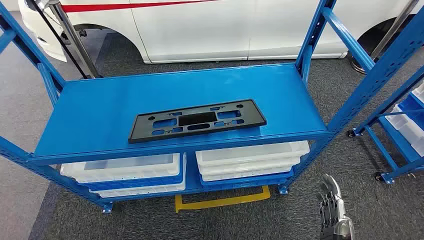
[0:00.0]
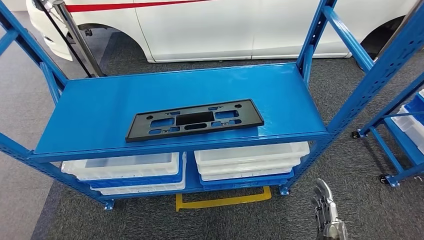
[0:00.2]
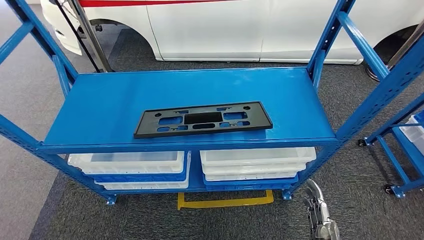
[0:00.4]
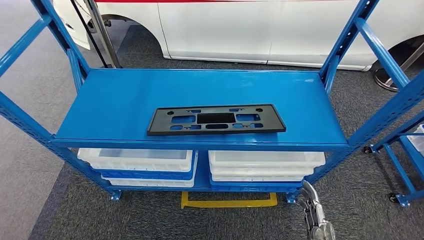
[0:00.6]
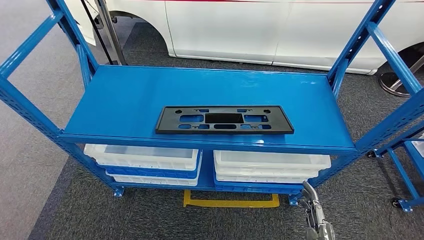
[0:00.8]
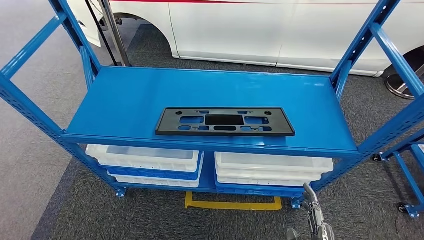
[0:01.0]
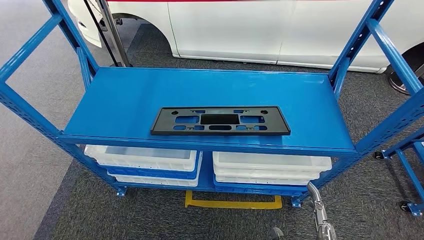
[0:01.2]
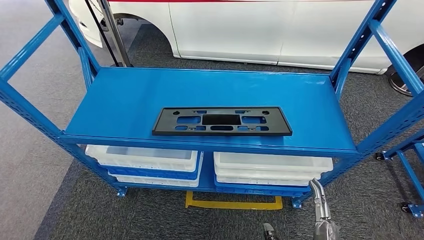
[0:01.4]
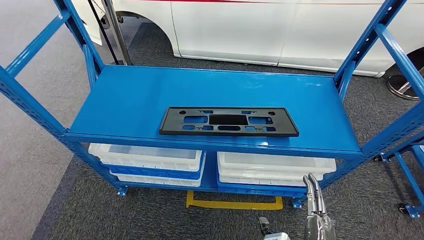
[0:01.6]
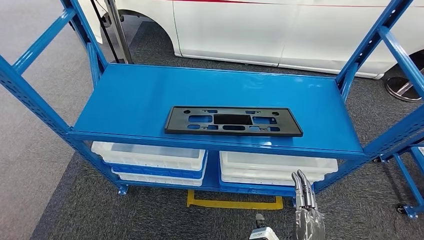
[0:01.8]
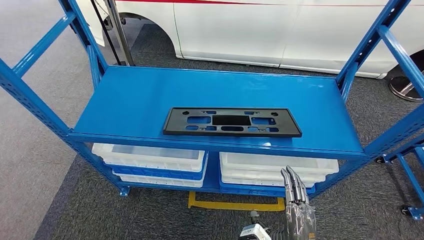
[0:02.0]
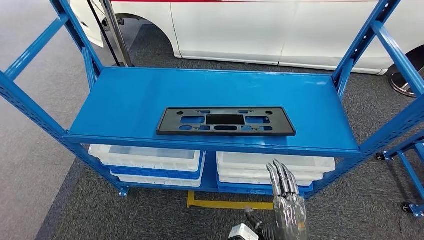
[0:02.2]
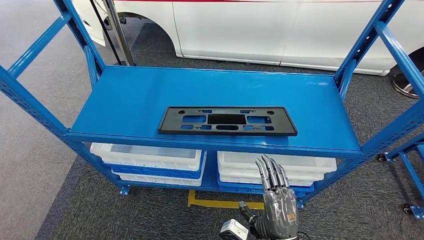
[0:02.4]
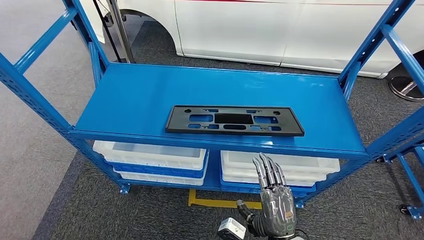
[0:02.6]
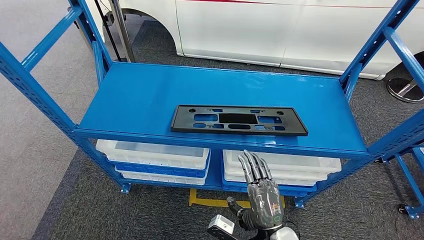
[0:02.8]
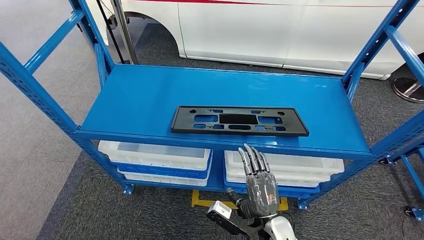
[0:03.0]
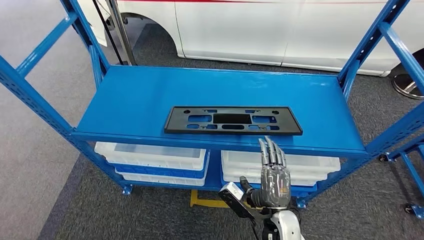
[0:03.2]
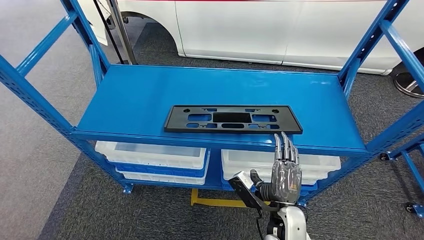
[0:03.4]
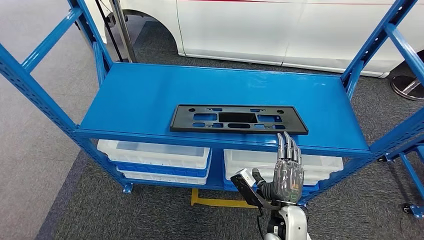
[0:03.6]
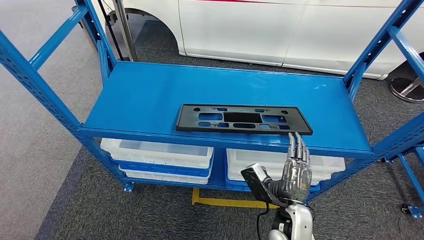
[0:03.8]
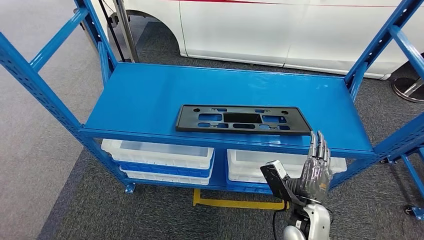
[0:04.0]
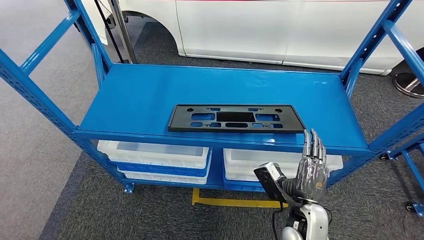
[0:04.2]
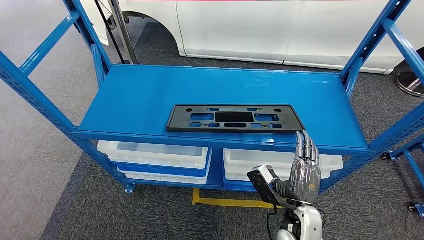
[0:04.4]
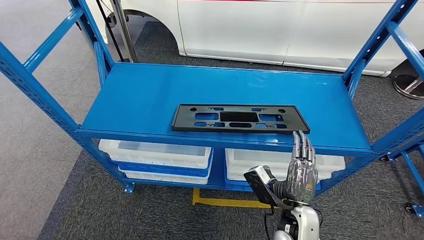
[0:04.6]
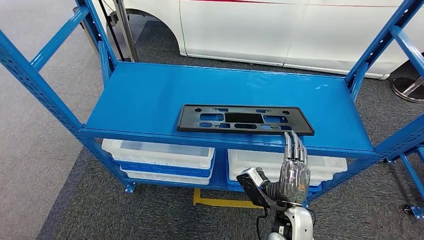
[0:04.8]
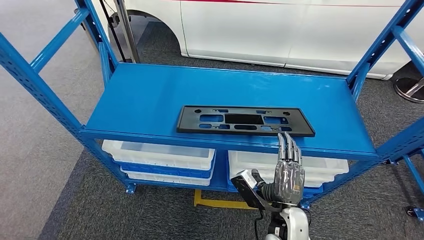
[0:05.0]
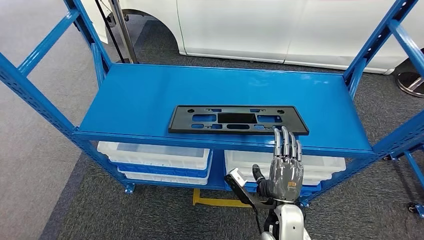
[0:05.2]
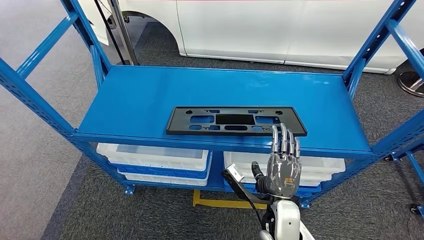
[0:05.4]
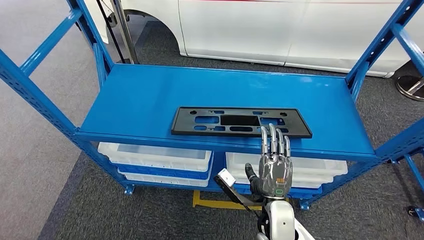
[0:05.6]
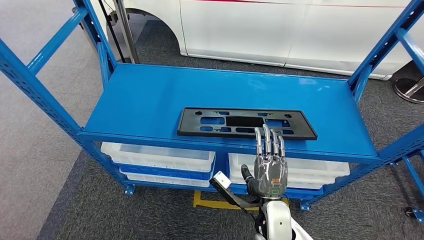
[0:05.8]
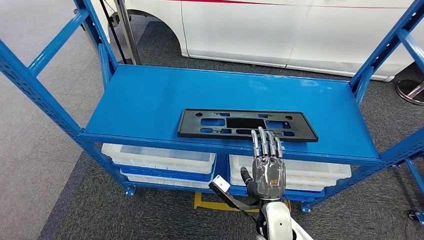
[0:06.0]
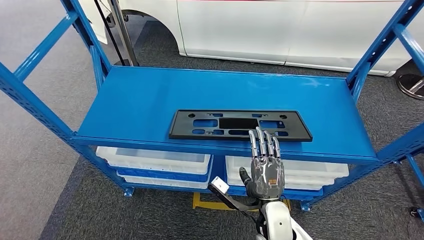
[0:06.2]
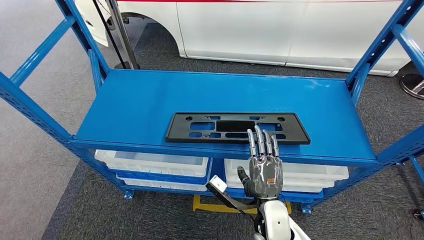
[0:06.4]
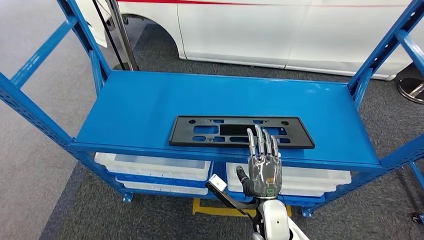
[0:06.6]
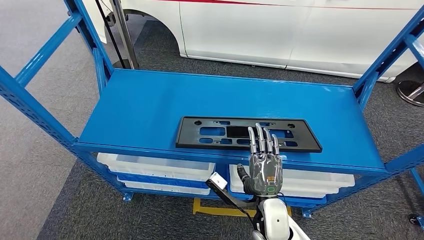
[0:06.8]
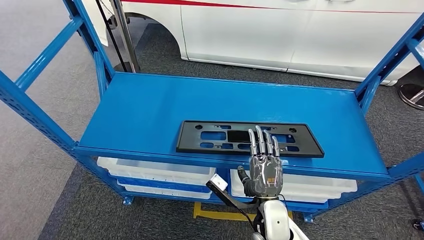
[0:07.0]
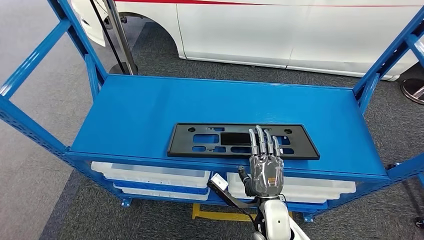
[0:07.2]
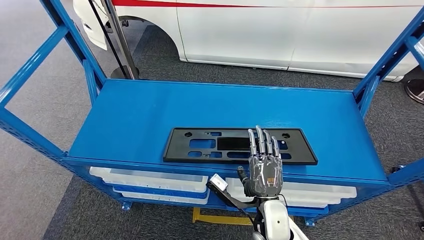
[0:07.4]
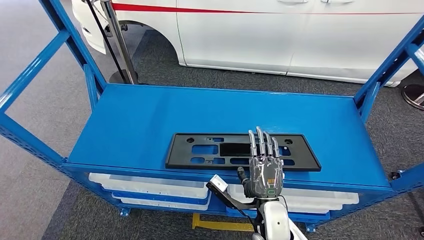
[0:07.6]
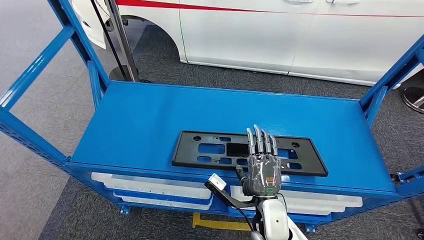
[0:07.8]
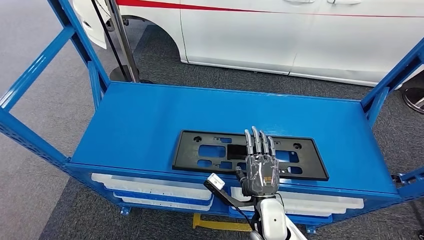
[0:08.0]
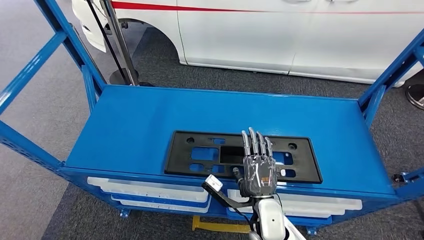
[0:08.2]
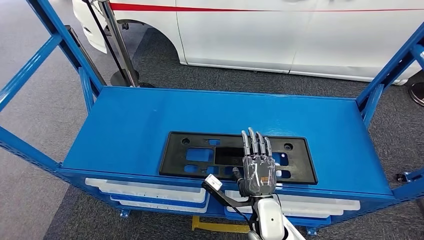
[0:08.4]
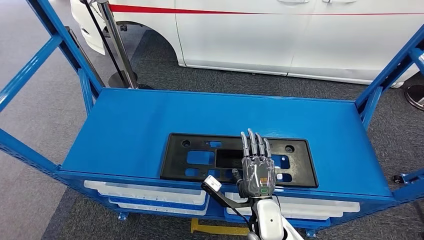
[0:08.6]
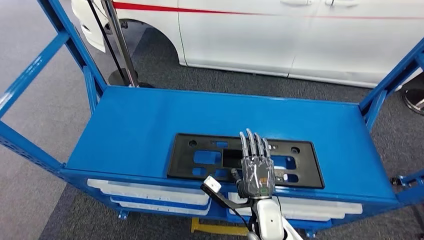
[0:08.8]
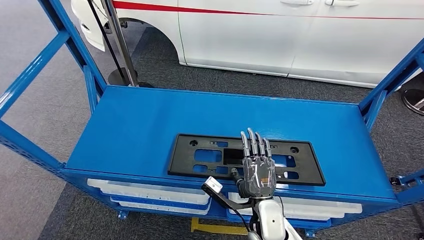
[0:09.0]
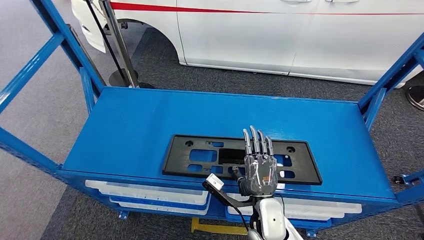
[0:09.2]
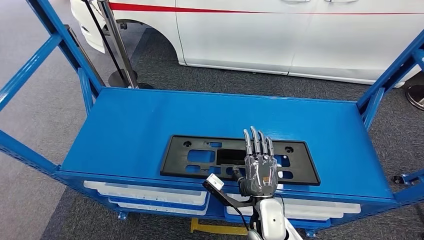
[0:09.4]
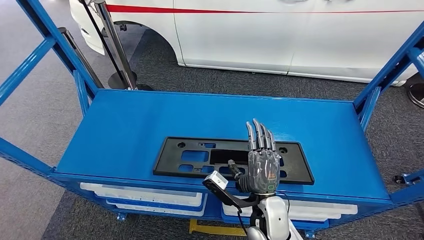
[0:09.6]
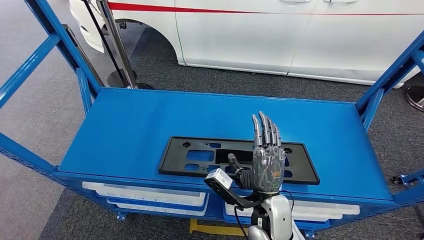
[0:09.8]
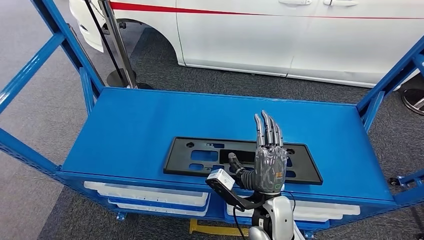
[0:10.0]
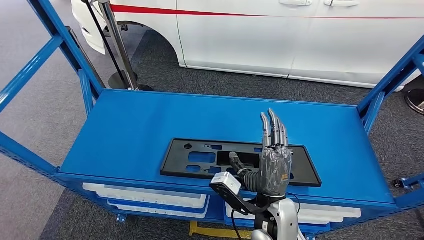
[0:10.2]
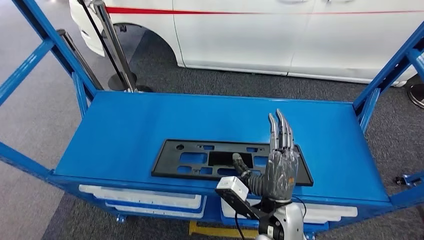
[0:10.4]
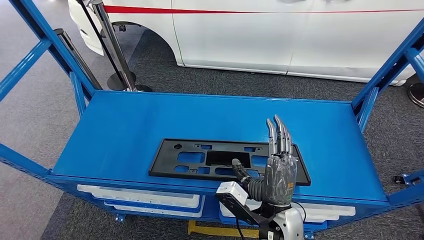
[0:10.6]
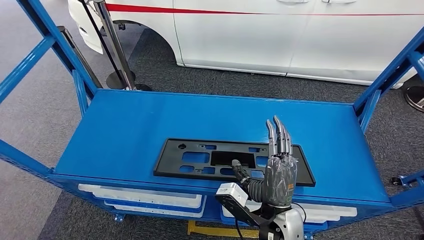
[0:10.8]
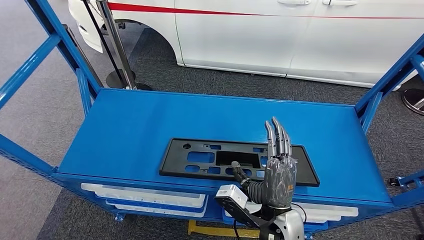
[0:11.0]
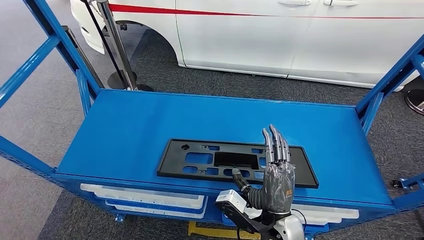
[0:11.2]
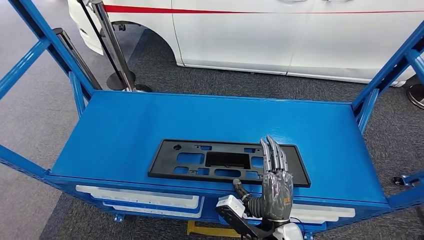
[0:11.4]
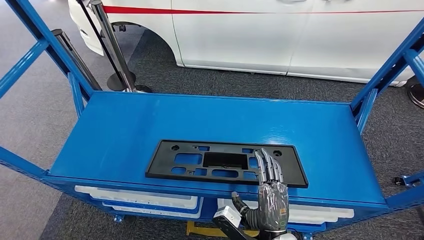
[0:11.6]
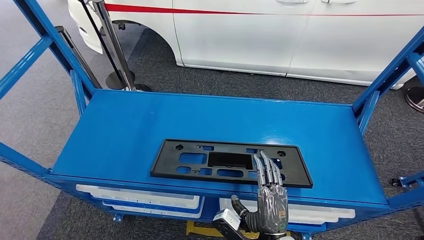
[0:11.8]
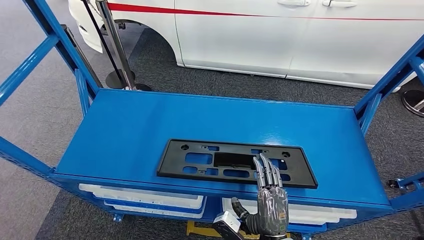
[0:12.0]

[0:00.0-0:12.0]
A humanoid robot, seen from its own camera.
0:10.4 to 0:12.0: The right hand is displaced backward and downward by approximately 10 cm.

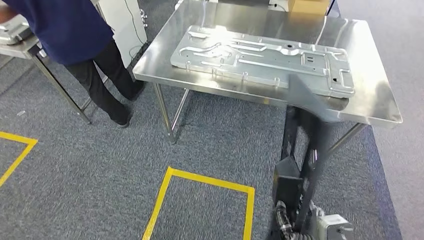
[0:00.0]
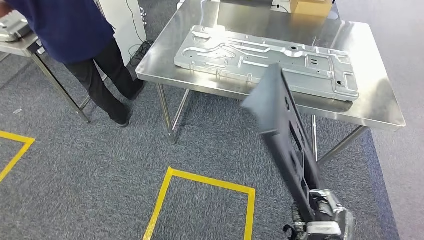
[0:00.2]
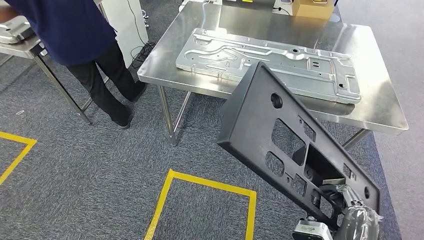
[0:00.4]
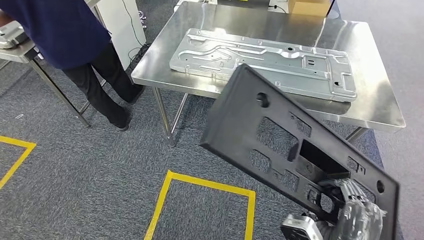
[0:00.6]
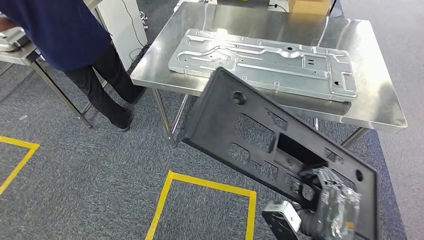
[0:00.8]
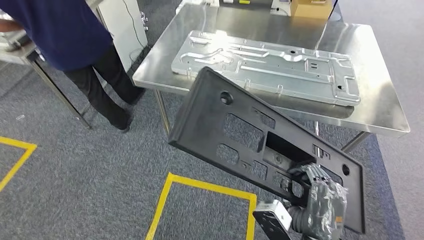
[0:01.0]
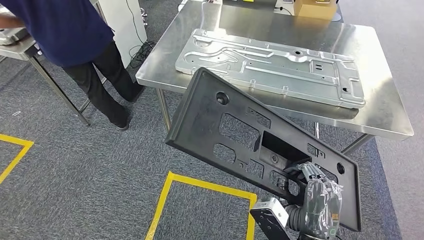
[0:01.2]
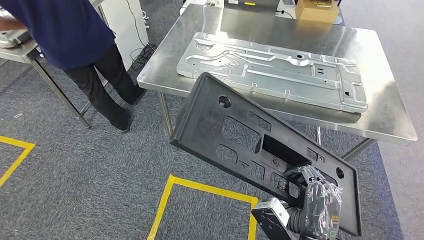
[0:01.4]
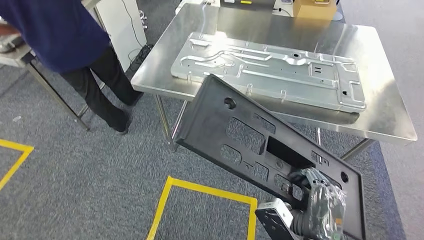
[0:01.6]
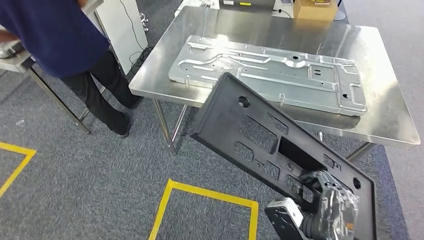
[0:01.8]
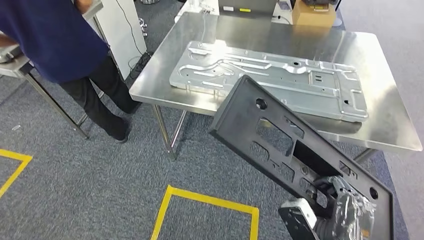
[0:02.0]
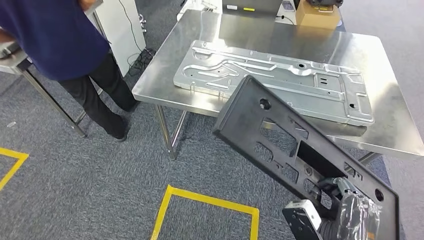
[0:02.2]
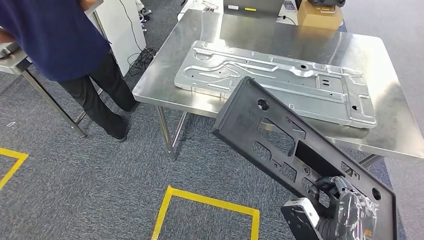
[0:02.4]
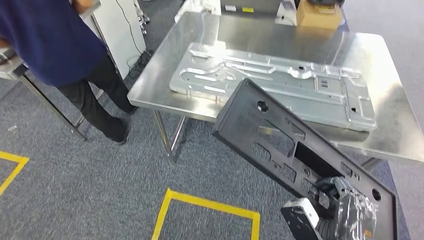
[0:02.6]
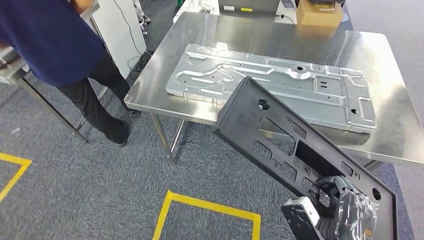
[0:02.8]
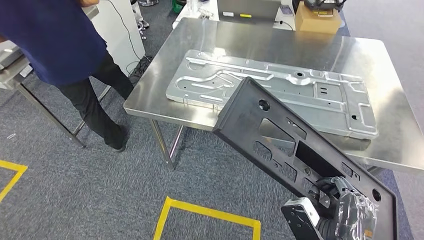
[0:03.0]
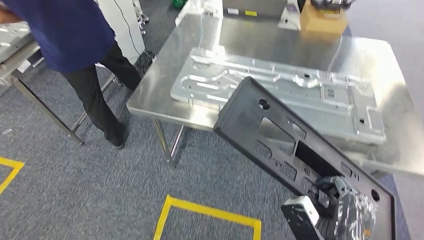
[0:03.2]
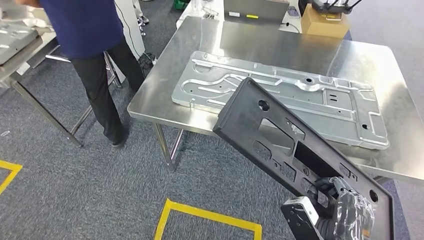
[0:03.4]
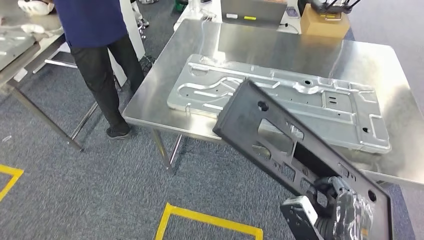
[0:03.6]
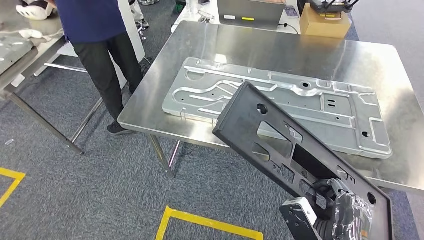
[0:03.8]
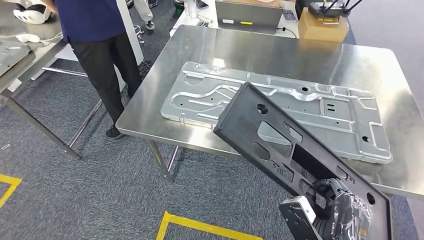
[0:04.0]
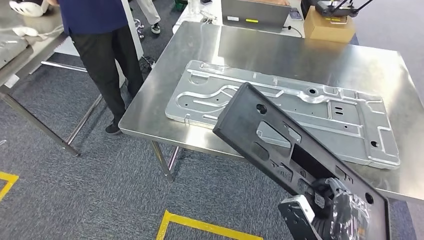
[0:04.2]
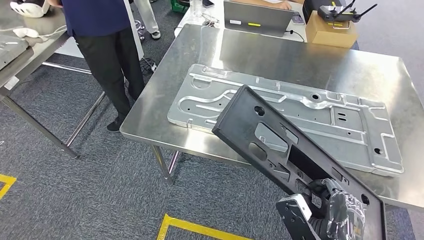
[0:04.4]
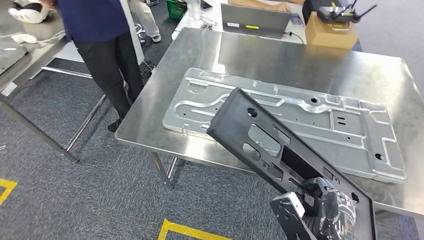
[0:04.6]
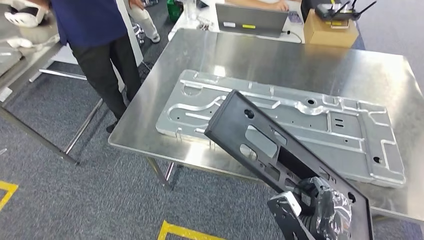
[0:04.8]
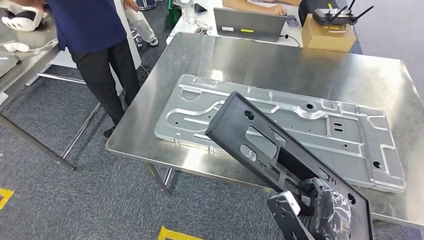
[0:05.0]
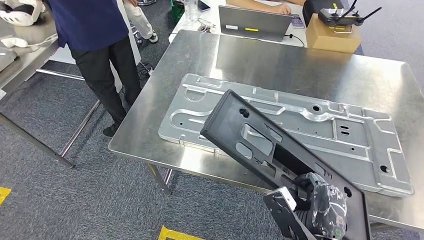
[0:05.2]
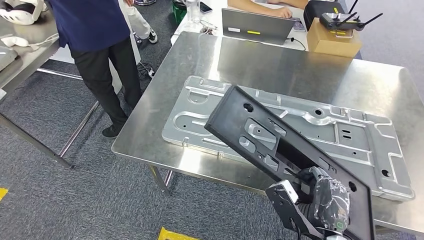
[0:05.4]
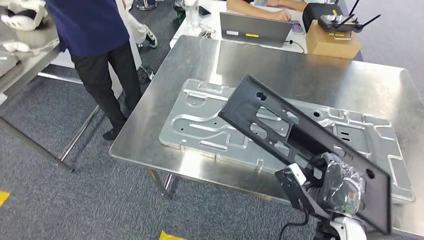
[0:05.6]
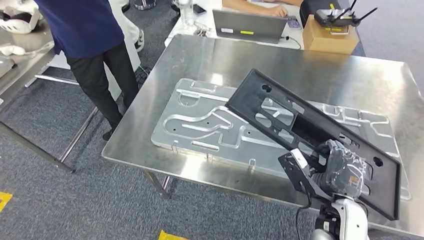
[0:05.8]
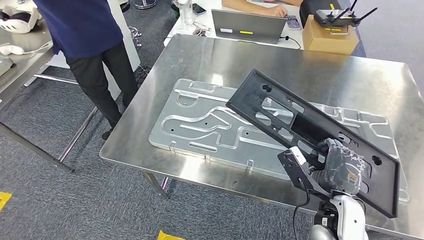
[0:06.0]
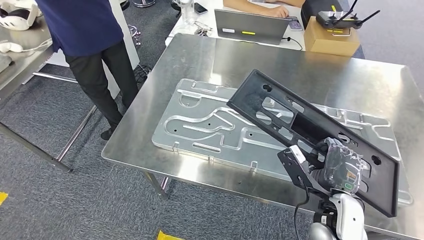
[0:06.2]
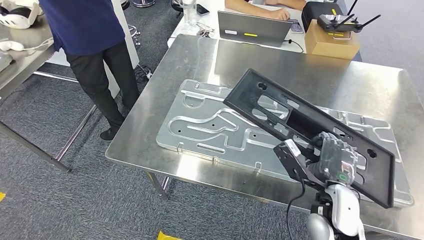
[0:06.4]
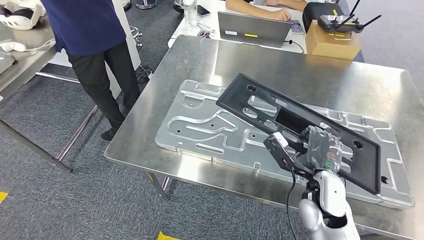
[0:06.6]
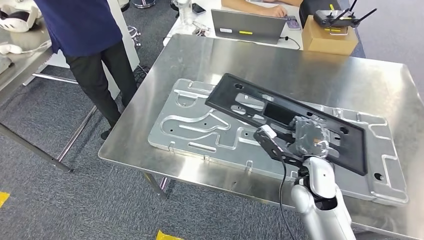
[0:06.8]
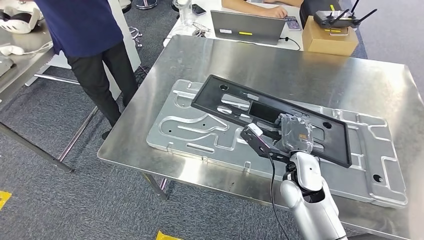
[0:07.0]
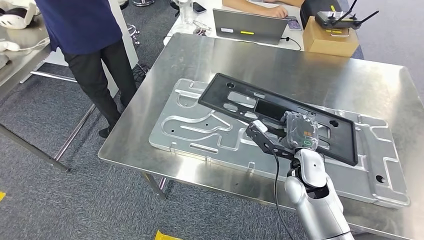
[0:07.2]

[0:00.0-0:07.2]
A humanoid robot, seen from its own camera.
Step, 0:00.0 to 0:05.6: Move the large material to the front of the workbench.
